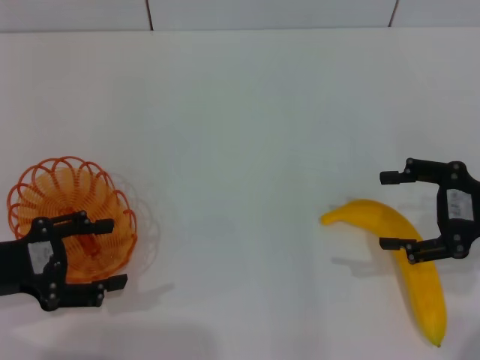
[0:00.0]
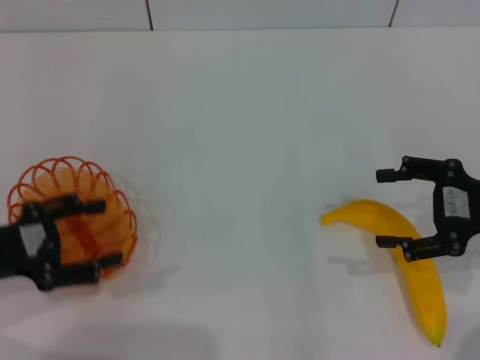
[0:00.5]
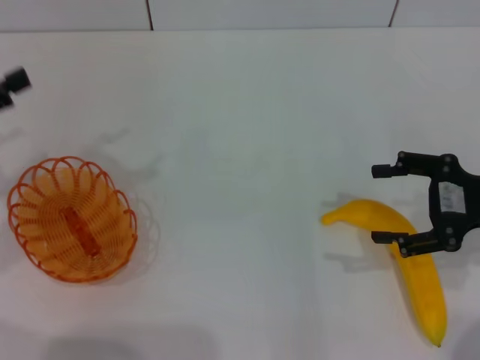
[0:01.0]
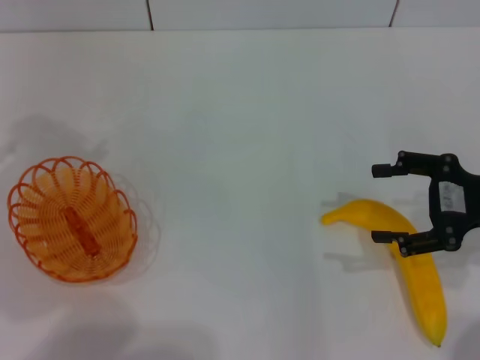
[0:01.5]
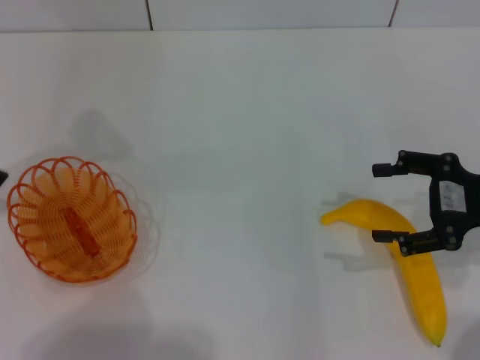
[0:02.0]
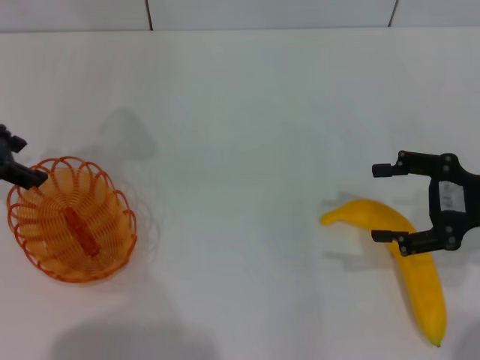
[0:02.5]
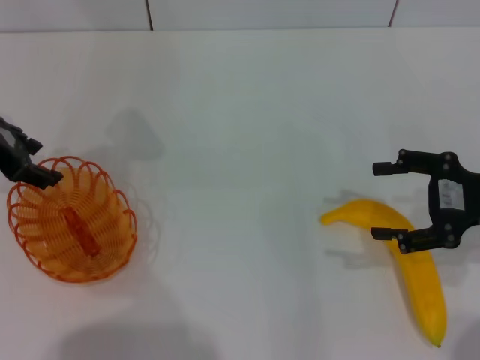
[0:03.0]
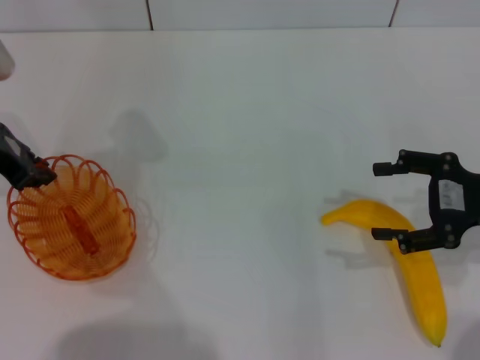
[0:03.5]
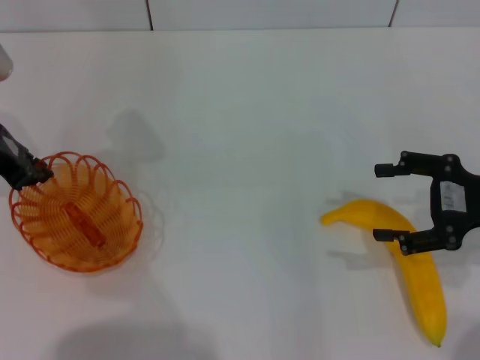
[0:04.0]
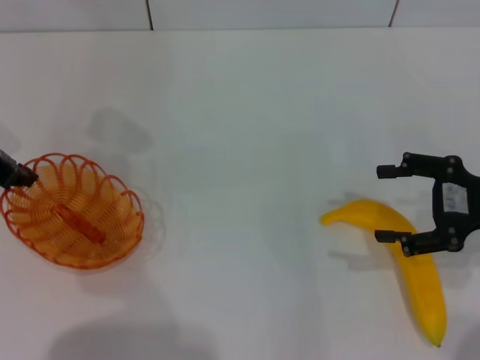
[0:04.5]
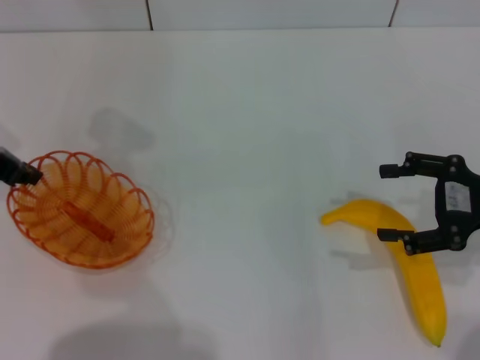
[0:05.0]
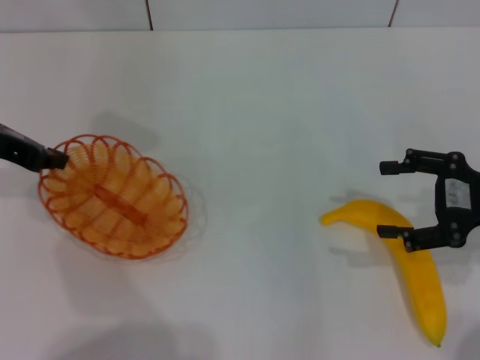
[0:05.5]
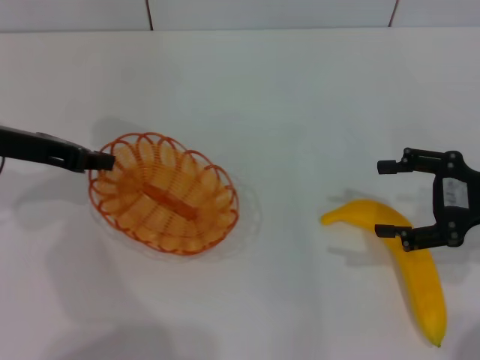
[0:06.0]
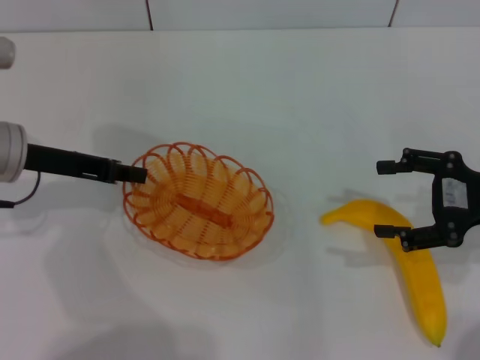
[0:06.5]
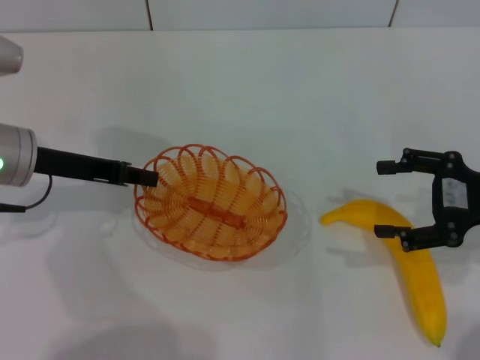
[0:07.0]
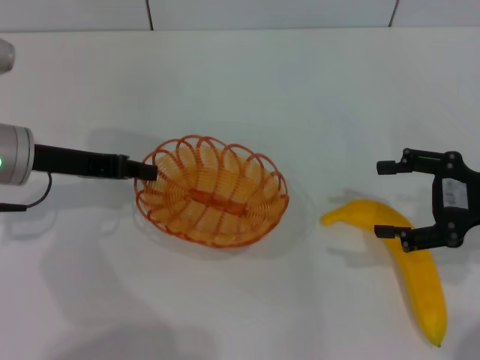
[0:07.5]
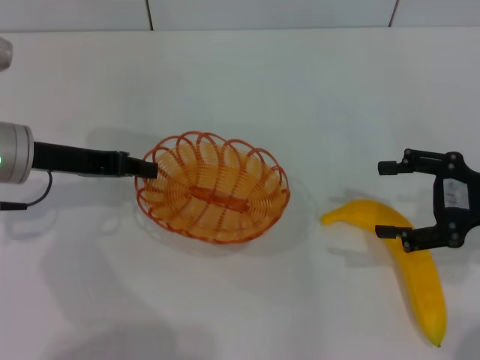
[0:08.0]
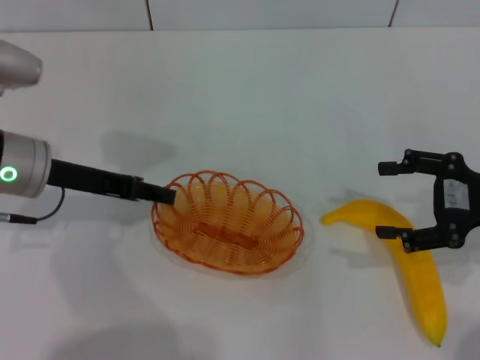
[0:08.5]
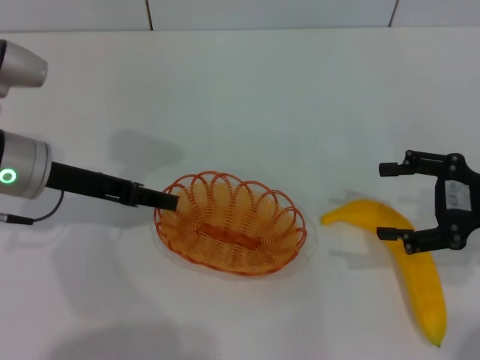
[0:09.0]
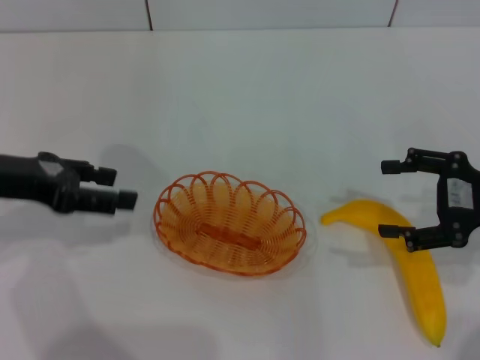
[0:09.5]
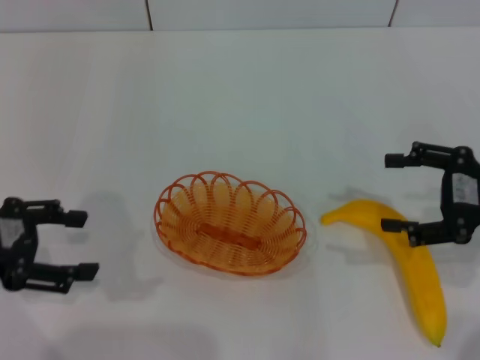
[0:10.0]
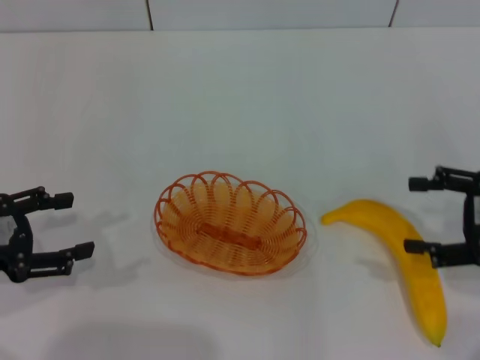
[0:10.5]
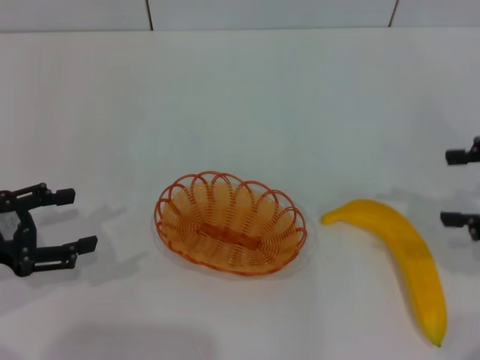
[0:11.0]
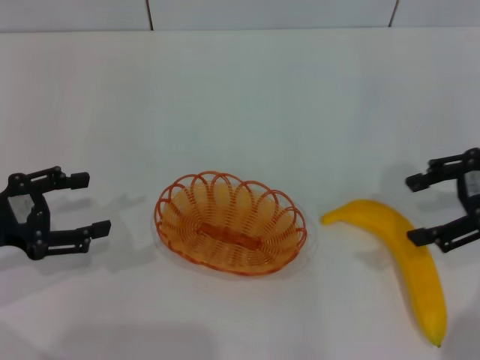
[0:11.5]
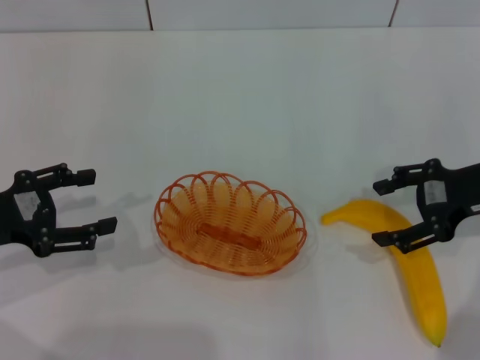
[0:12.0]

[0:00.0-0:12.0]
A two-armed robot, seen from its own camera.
Step, 0:00.0 to 0:04.5: Pick up the basket with the left gripper.
Step, 0:05.0 to 0:09.5: Place the basket in the center of view with the left gripper.
0:00.0 to 0:02.0: The left gripper travels upward and forward by about 20 cm.
0:02.0 to 0:04.0: The left gripper shifts some 10 cm to the right and downward, and closes up.
0:06.0 to 0:08.0: There are only small adjustments of the grippers.
0:08.0 to 0:10.0: The left gripper shifts roughly 10 cm backward and to the left, and opens.
0:10.0 to 0:12.0: The right gripper changes place by about 5 cm.

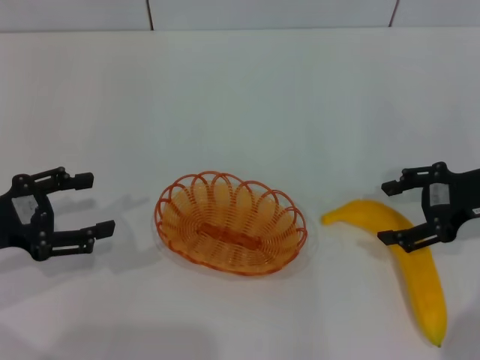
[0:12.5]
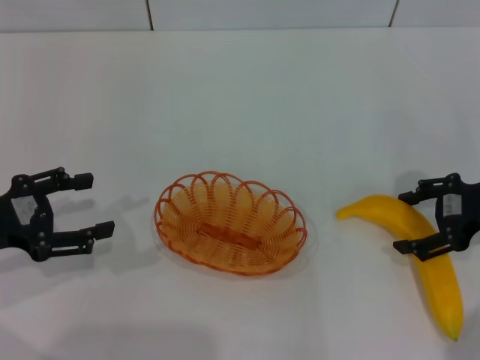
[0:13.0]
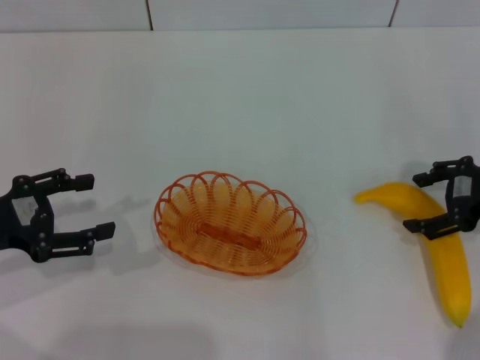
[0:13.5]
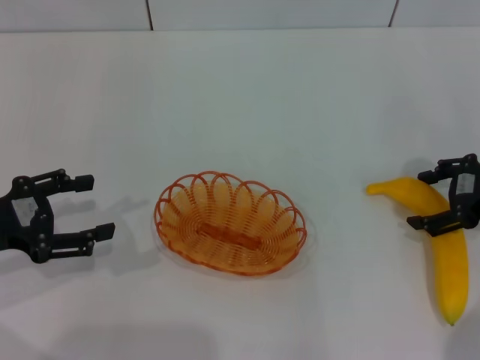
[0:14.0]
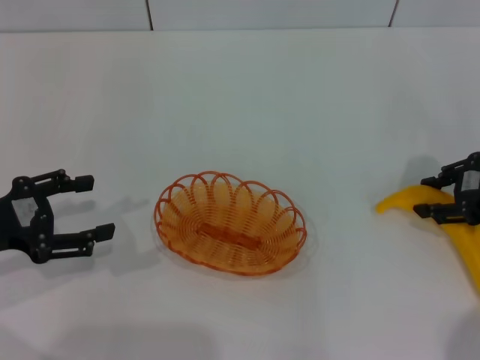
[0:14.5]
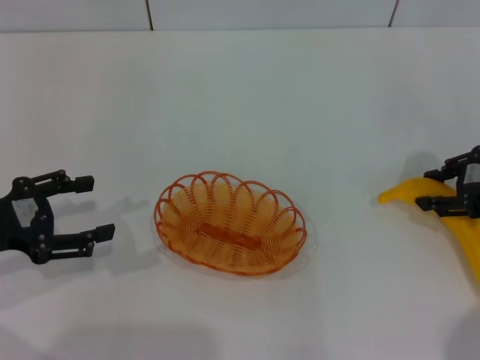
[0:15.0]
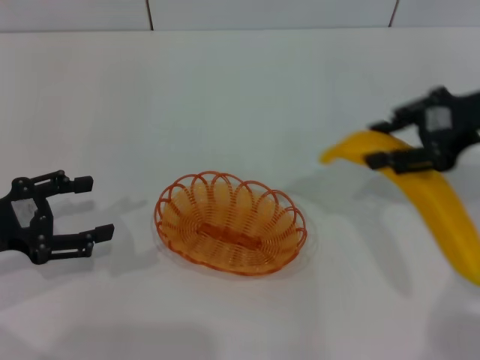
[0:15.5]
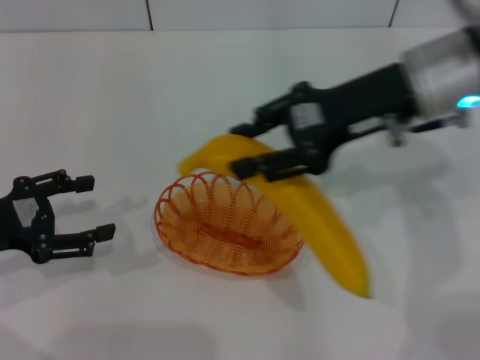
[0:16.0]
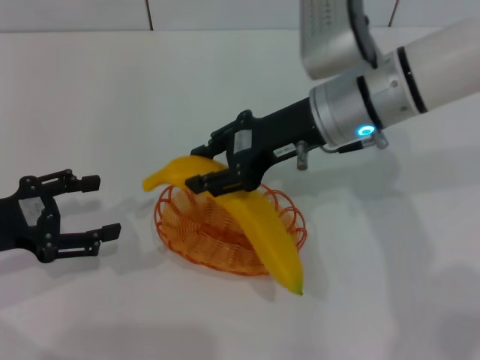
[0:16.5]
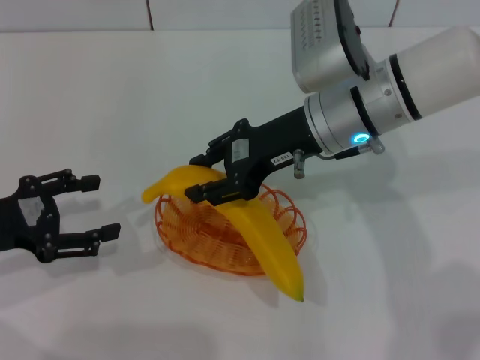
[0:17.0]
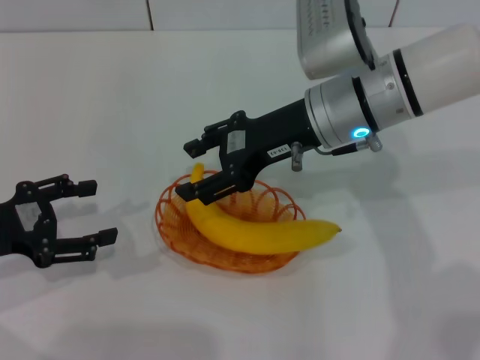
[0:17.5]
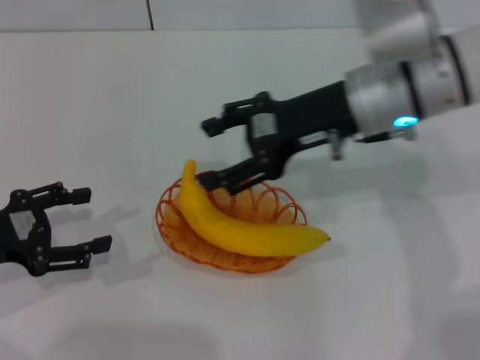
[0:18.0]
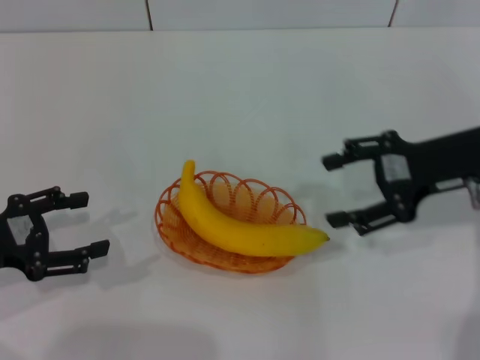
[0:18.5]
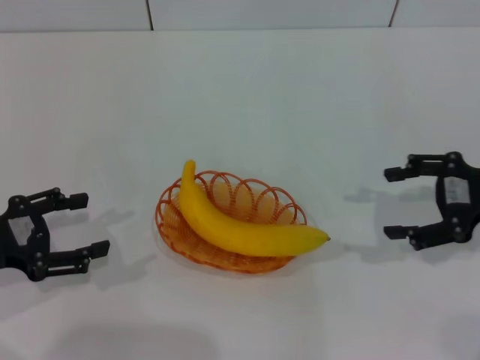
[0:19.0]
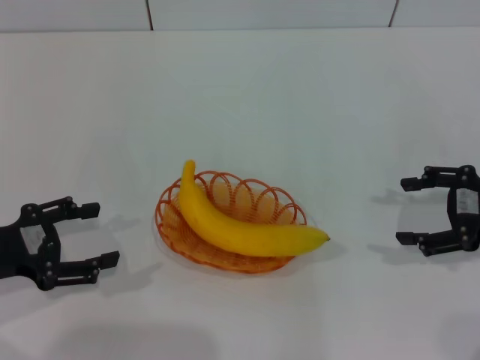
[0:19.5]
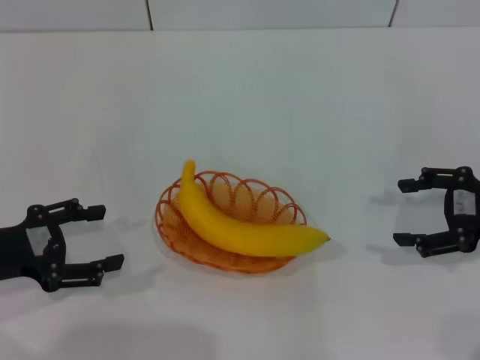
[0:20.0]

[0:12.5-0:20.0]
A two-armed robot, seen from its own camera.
Step, 0:12.5 to 0:15.0: Pick up the banana with the right gripper.
Step, 0:15.5 to 0:18.0: Place the banana into the basket with the right gripper.
0:12.5 to 0:14.5: The right gripper closes its fingers.
0:14.5 to 0:16.5: The right gripper shifts approximately 20 cm to the left, and closes up.
0:16.5 to 0:18.0: The right gripper opens.
0:18.0 to 0:20.0: The right gripper travels to the right and backward by approximately 20 cm.

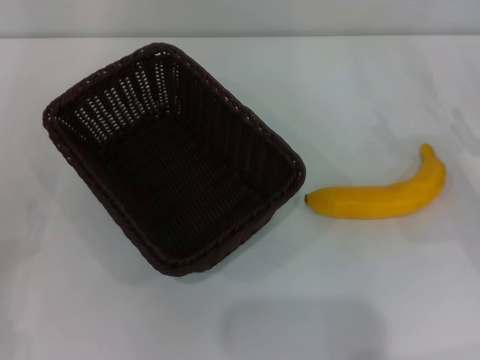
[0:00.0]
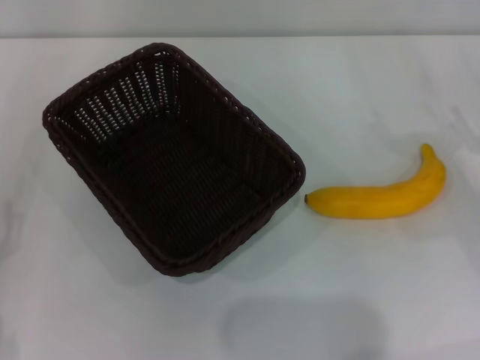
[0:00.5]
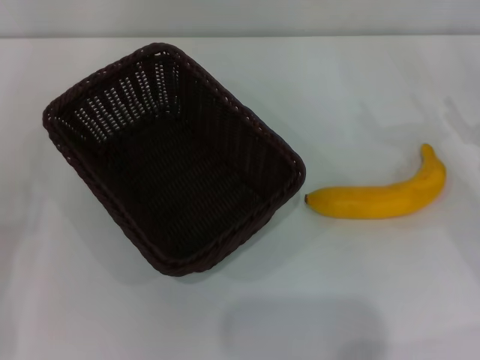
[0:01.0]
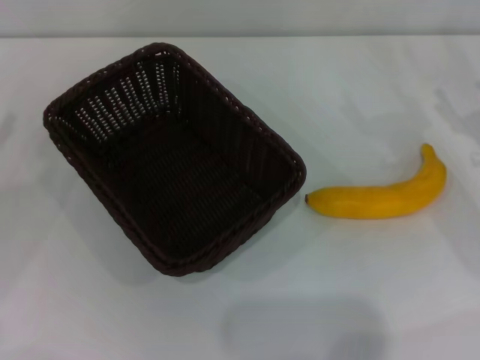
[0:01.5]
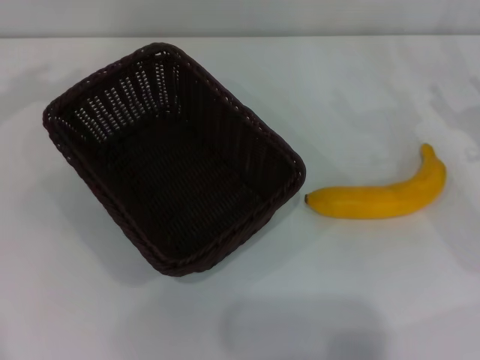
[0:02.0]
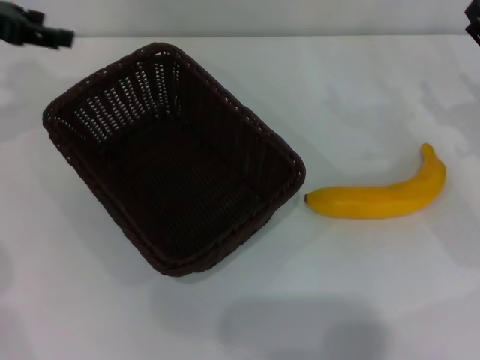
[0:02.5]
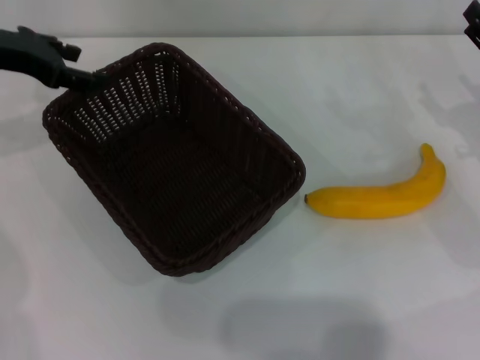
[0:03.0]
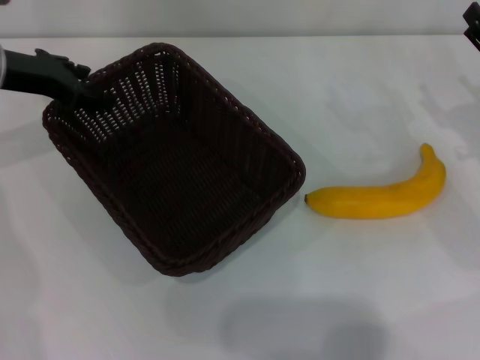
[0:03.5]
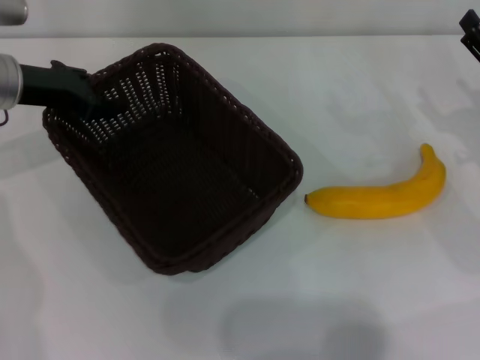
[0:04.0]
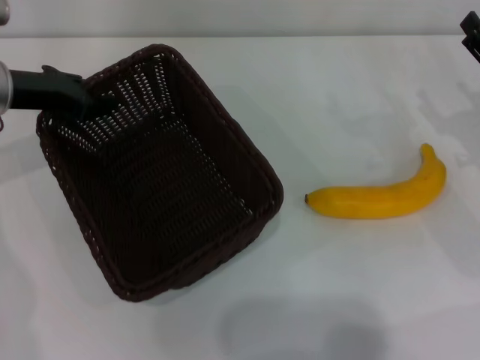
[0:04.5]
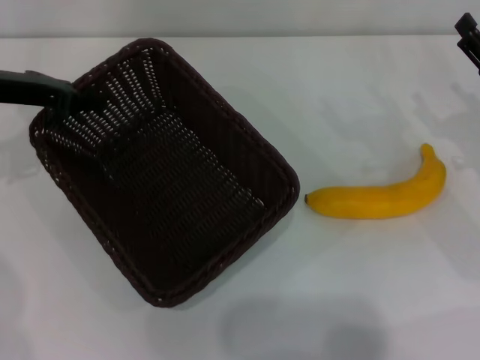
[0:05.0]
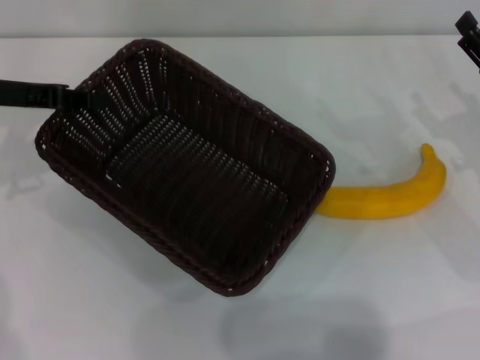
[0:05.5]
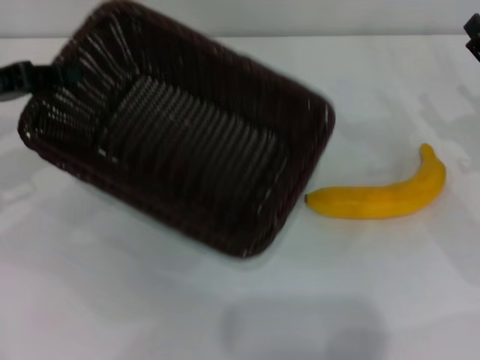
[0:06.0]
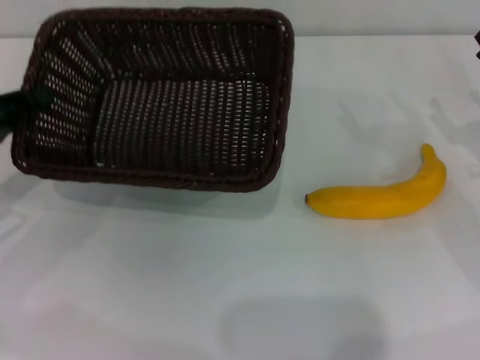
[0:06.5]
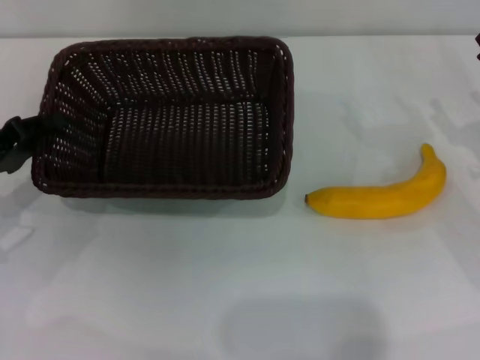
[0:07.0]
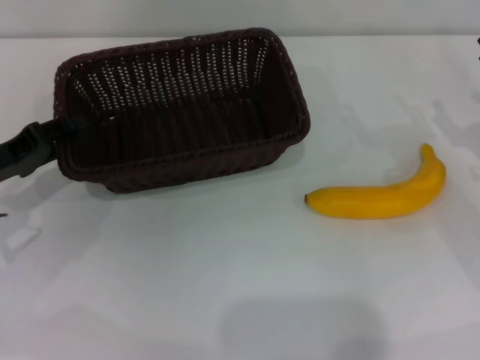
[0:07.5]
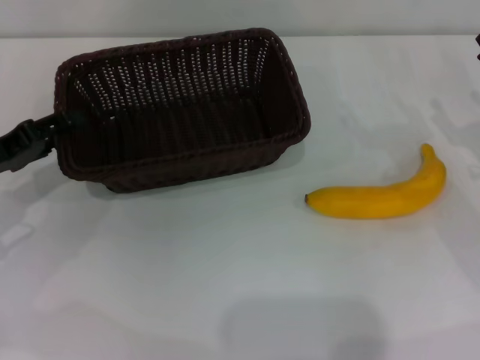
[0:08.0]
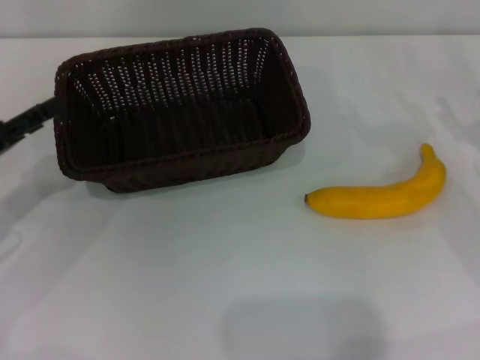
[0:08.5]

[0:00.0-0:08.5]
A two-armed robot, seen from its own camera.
Step, 0:00.0 to 0:06.0: Pick up the dark basket with the left gripper.
0:02.0 to 0:04.0: The left gripper shifts approximately 15 cm to the right and downward.
0:04.0 to 0:06.5: The left gripper moves backward and to the left, approximately 15 cm, and closes its fingers.
0:06.5 to 0:08.5: The left gripper opens.
